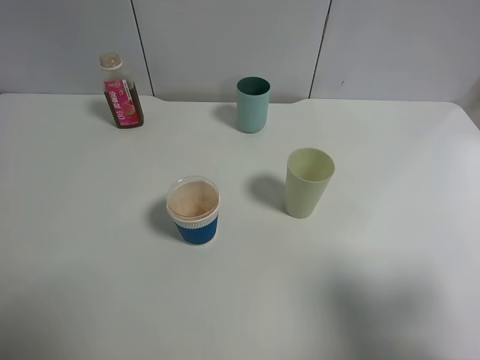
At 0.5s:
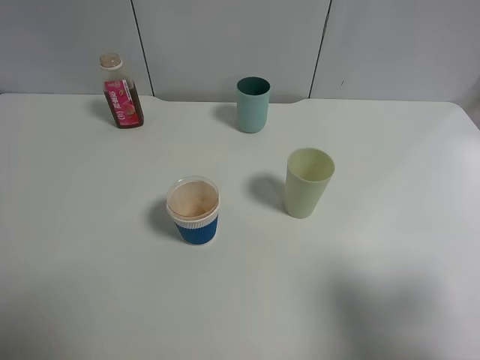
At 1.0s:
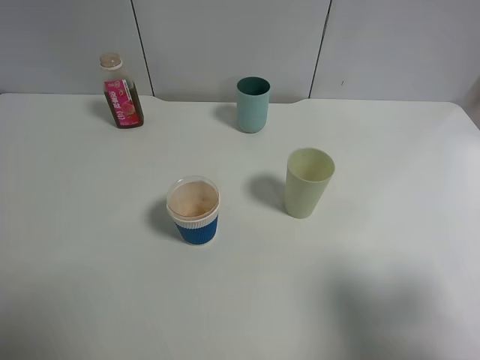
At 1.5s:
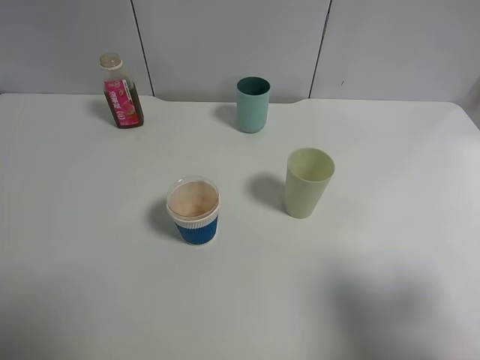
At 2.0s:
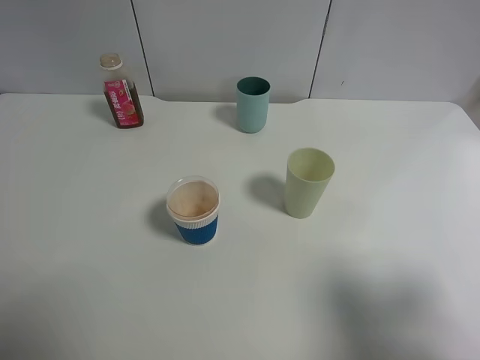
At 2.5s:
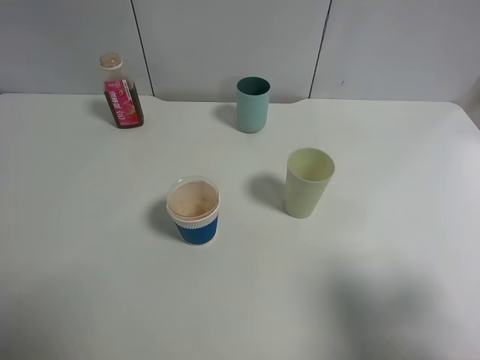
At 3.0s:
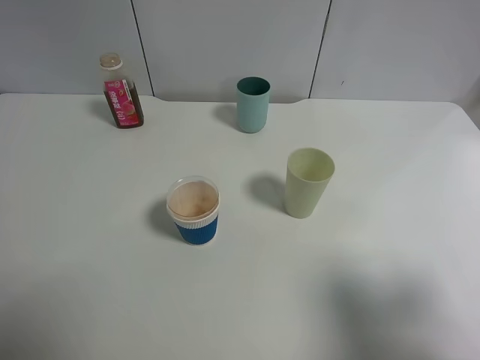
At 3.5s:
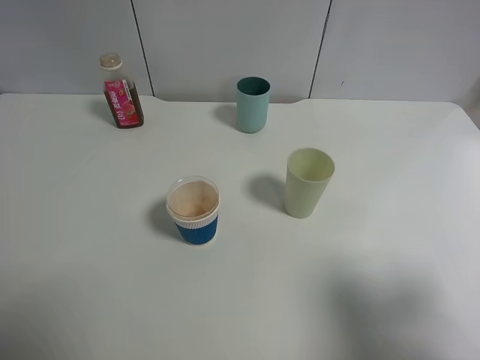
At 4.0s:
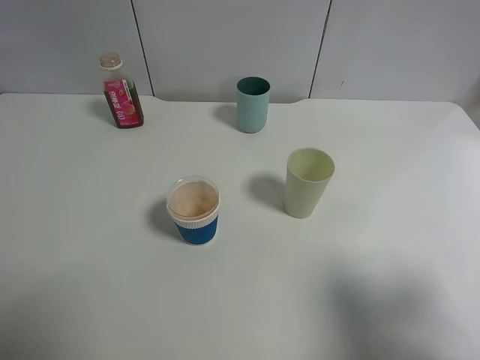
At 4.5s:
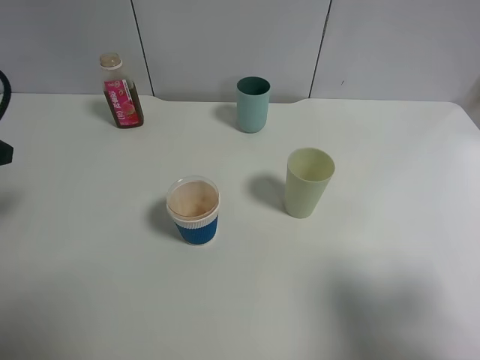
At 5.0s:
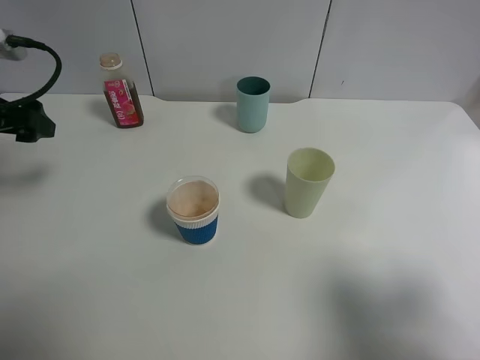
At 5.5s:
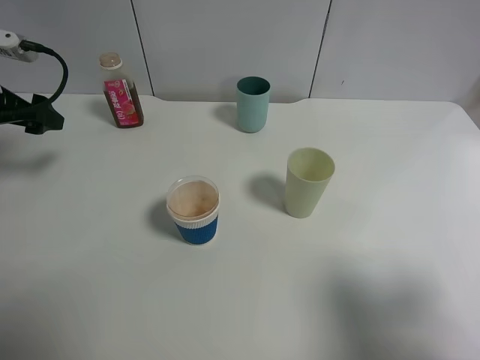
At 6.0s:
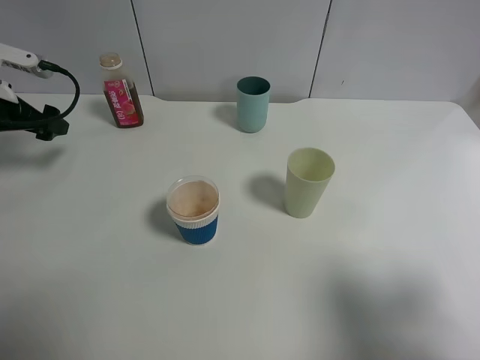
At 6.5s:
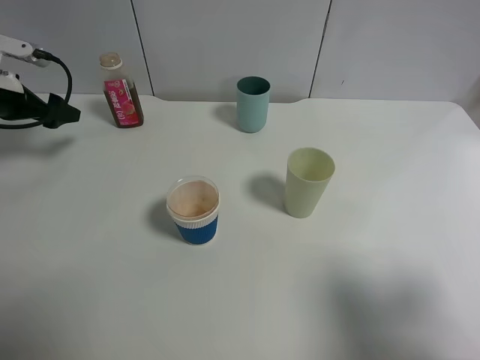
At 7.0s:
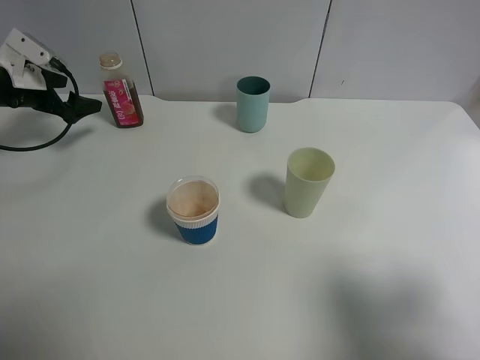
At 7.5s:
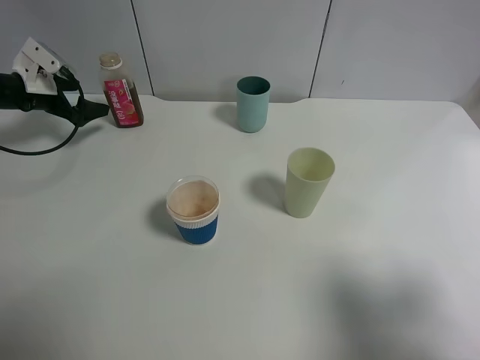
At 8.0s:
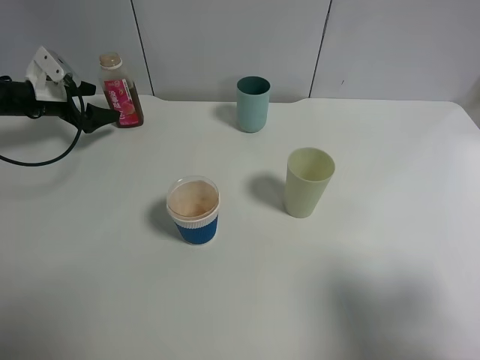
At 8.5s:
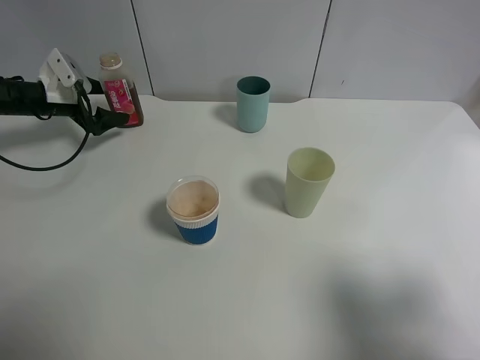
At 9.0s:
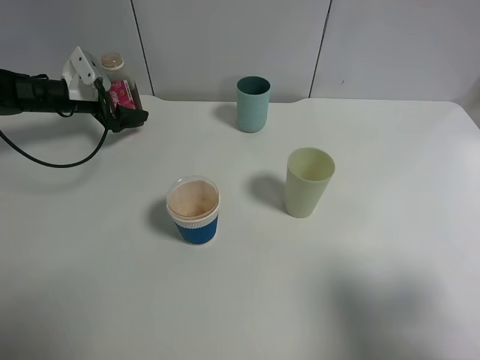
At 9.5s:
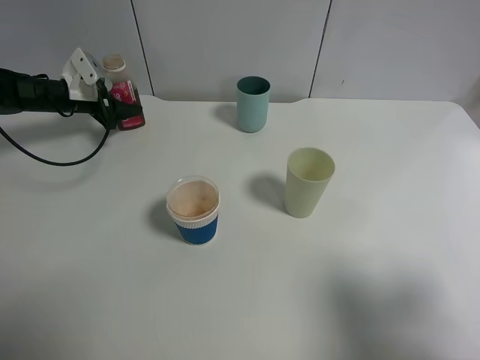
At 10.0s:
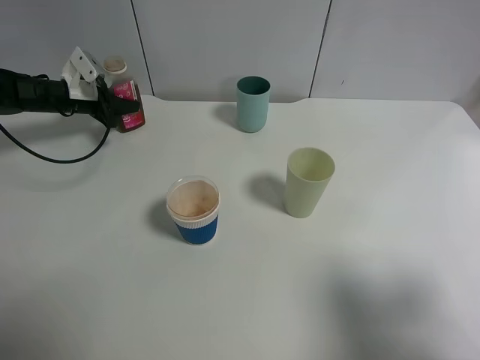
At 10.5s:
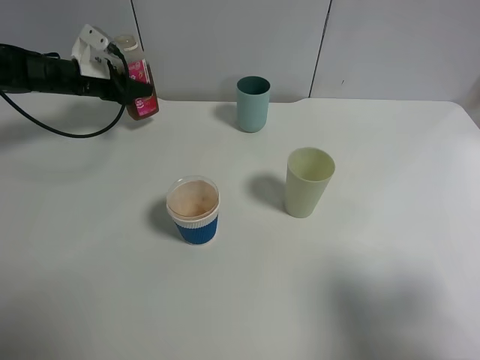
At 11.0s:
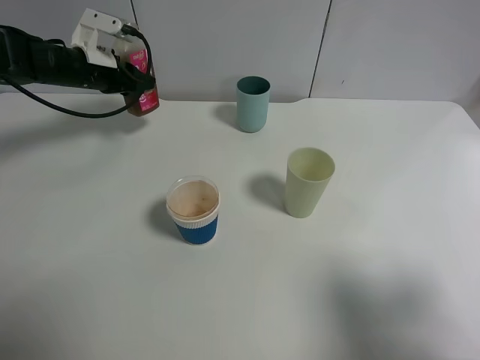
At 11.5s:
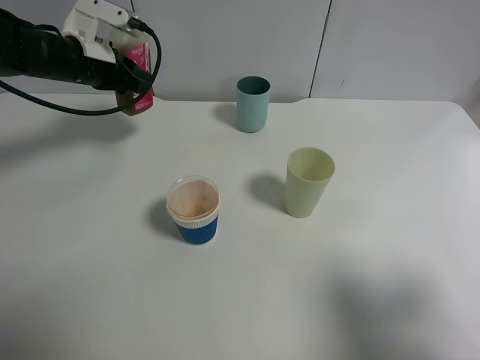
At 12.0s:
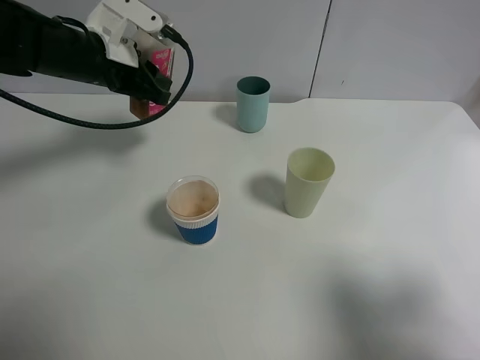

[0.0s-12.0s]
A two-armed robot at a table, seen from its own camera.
Task of the whole recording: use a gripper to hold the bottle of the drink and pour it into a random cup.
Step, 0.0s to 10.0s: Grasp the cranberry juice bottle with the left gripper.
0.0s to 2.0s: The two grippers keep their place.
4.0s to 6.0s: The left gripper heads forward and downward, covering roughly 25 cm.
6.0s to 8.0s: The left gripper shifts roughly 15 cm forward and downward.
8.0s to 10.0s: The left gripper moves roughly 5 cm, and closes up.
10.0s to 12.0s: The left gripper shifts about 25 cm to the right, upward and backward.

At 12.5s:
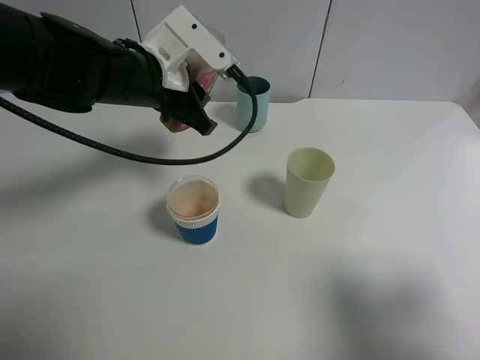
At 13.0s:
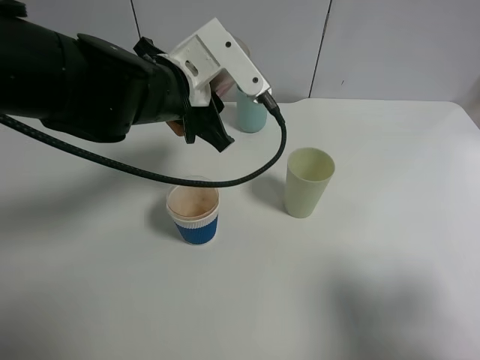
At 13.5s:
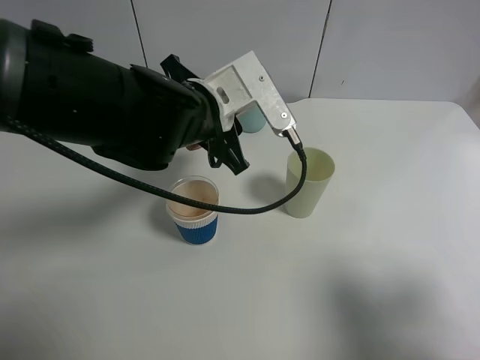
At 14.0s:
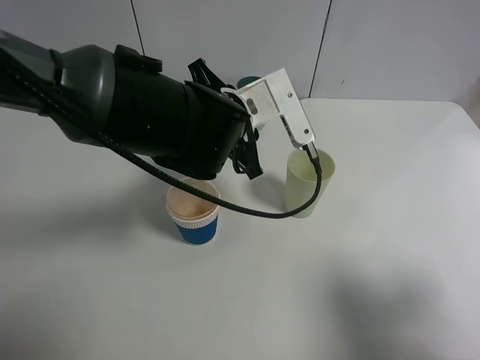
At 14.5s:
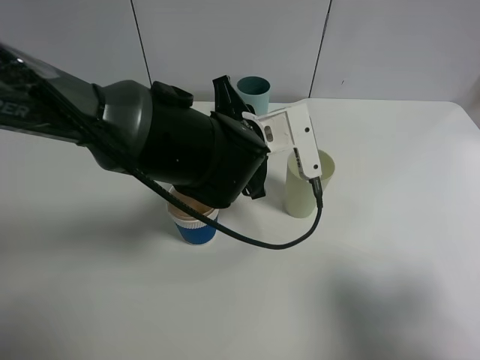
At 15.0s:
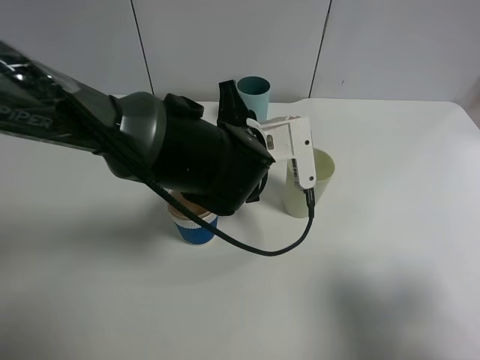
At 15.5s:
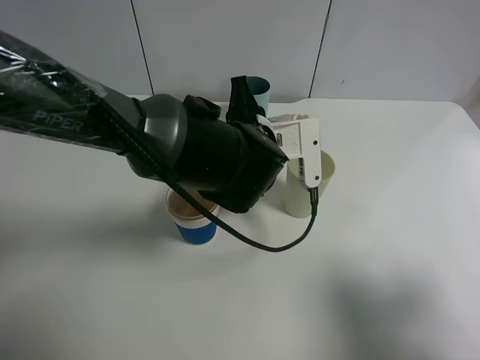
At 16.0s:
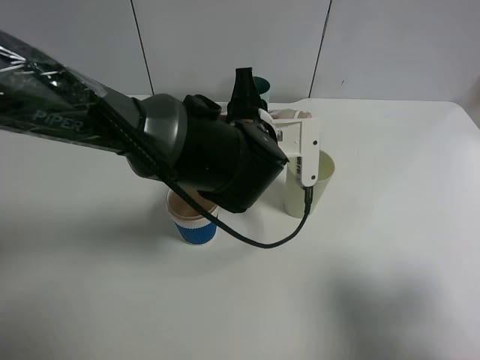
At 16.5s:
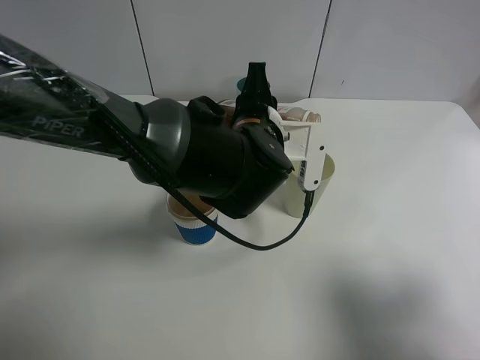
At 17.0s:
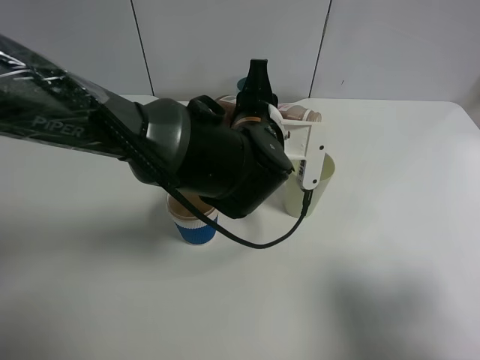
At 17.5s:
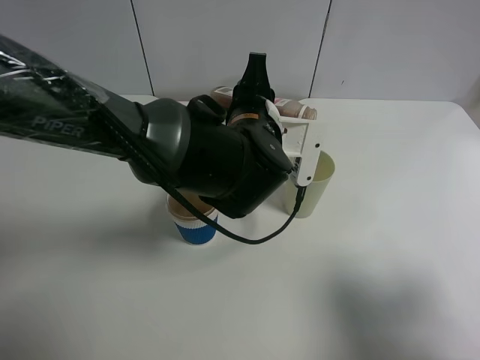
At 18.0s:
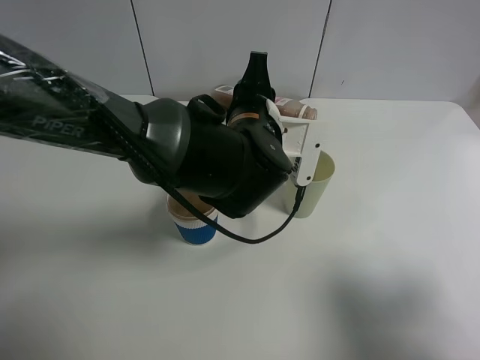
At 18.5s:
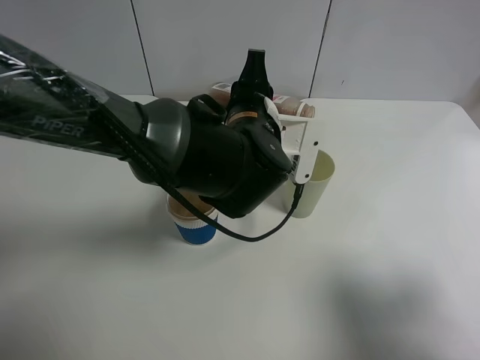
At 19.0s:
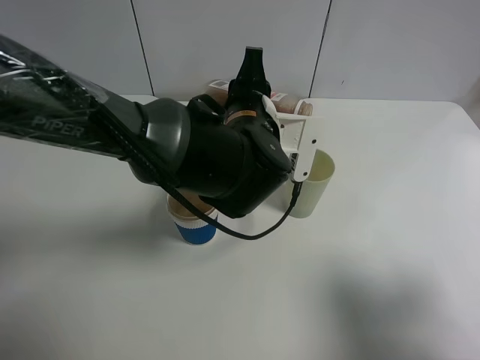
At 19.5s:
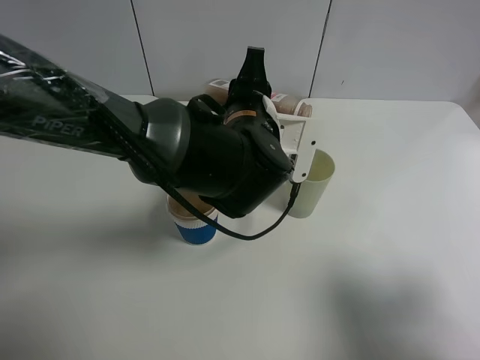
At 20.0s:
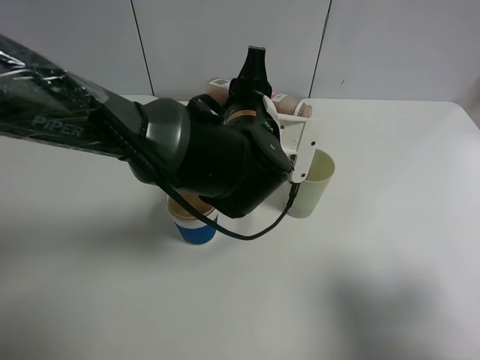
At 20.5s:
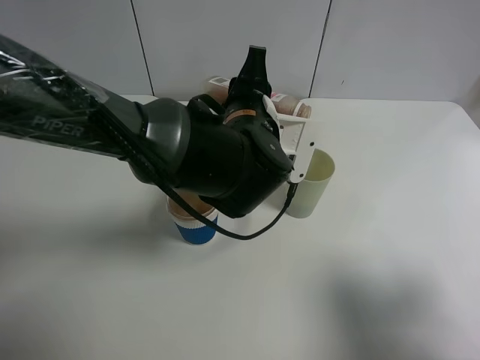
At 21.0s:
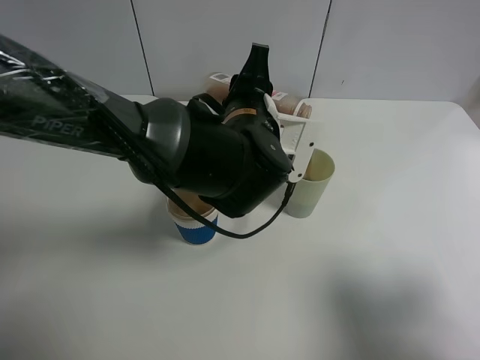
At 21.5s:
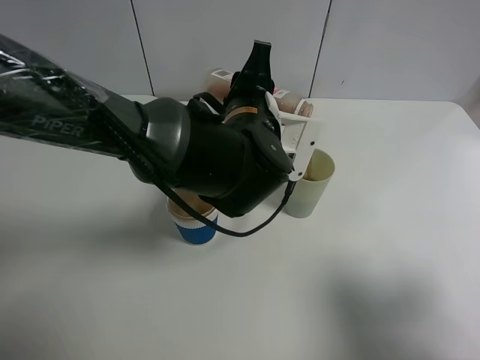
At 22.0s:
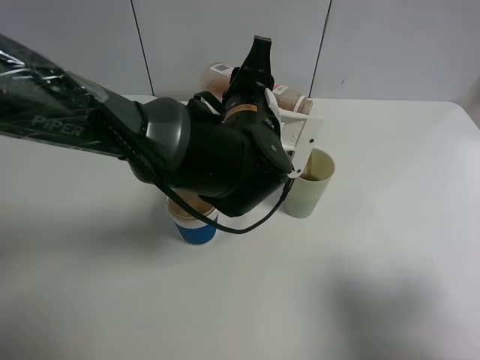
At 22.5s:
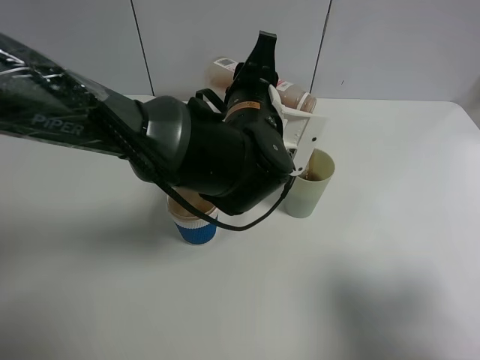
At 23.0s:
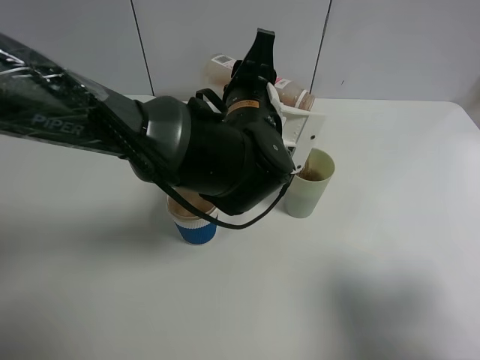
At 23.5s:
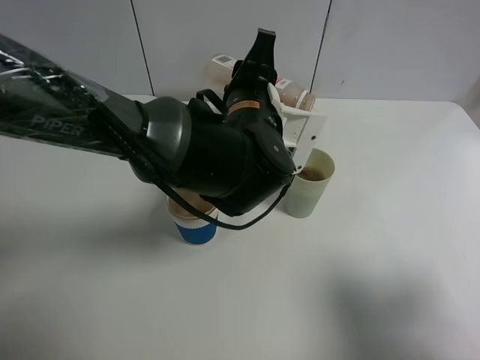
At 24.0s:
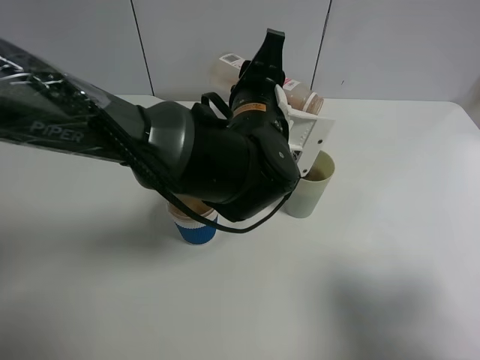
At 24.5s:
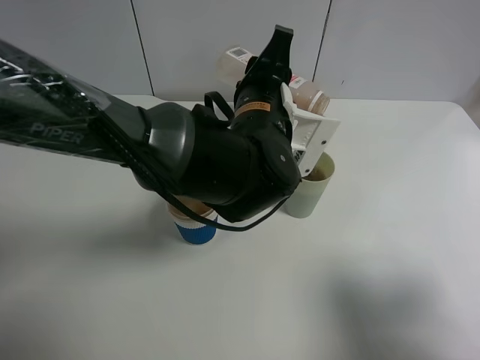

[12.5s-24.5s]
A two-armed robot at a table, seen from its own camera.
Task of the whole recording: use a gripper to hold the bottle of the drink and pour it into a random cup.
12.5s to 14.5s: The left gripper is displaced to the right and downward by roughly 10 cm.
16.5s to 18.5s: There are only small adjustments of the grippers.
18.5s to 20.5s: Both grippers stay put.
20.5s to 24.5s: The grippers stay close to where they were, moving slightly.

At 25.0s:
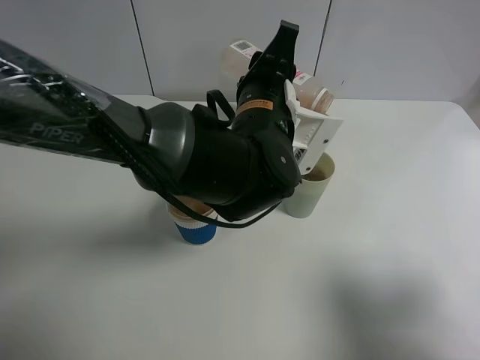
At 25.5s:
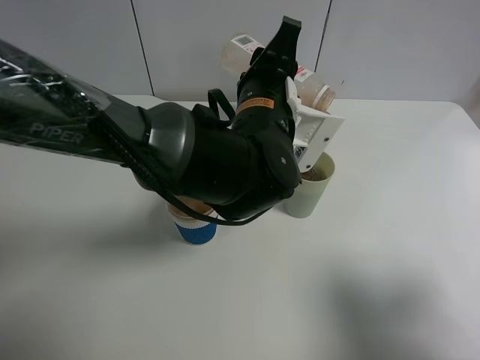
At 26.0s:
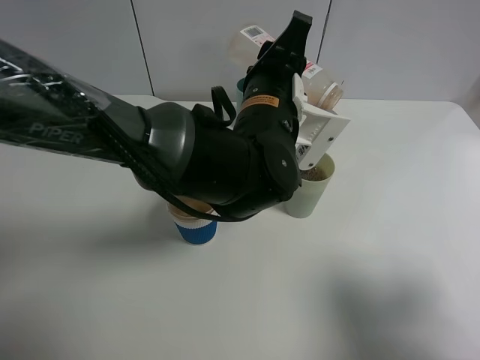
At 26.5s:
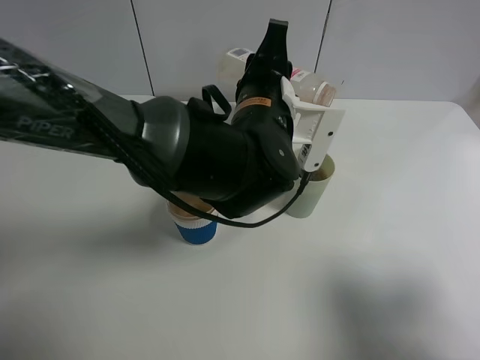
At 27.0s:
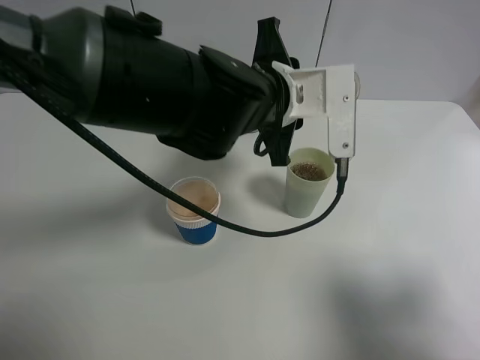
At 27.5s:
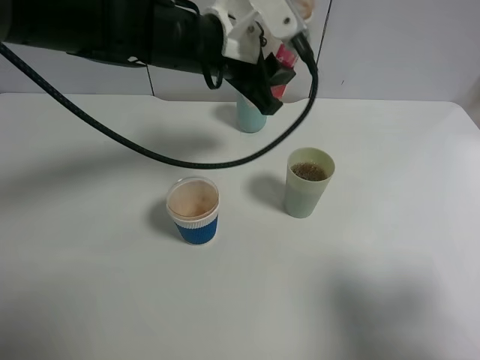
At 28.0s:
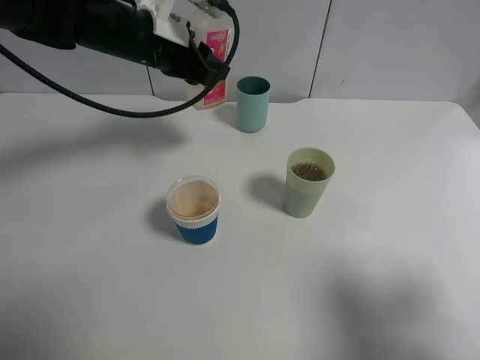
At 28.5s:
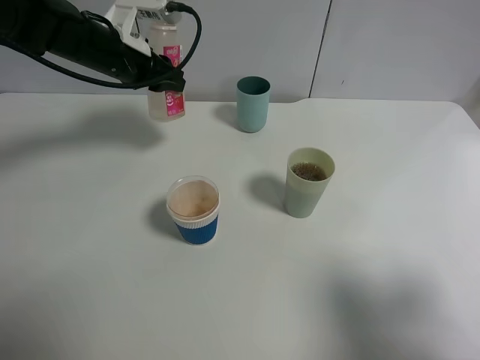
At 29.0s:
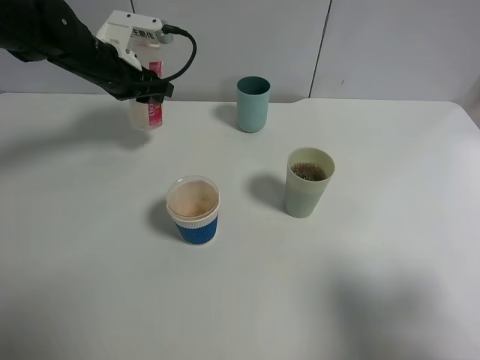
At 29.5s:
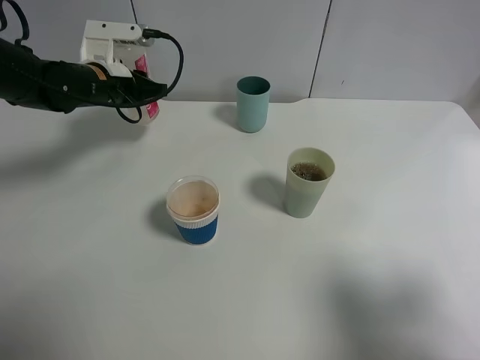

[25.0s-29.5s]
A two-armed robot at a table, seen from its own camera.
Task of the whole recording: use a gripper to hold the bottle of the drink and pour it into a random cup.
Step, 25.0s to 27.0s: Pour the cranberry juice into the White Plastic Cup with the left gripper.
27.0s to 29.5s: The left gripper shifts some 25 cm to the left and forward.
